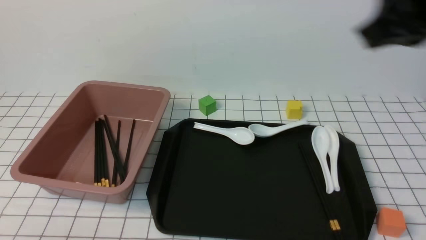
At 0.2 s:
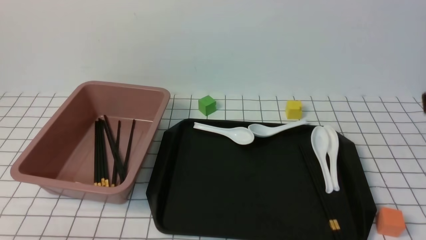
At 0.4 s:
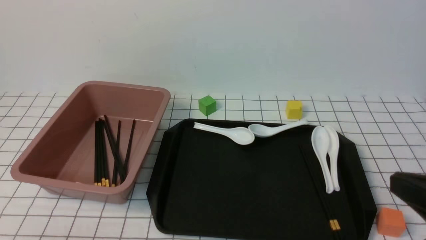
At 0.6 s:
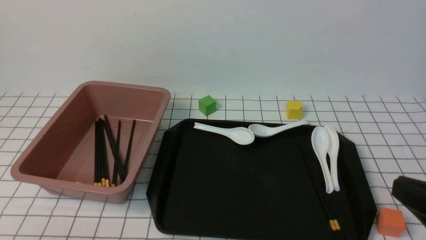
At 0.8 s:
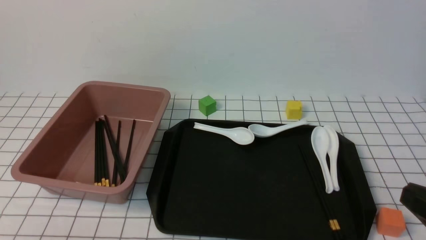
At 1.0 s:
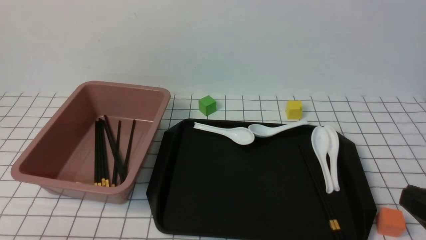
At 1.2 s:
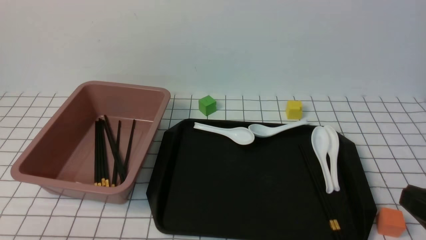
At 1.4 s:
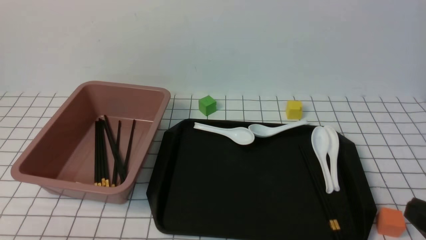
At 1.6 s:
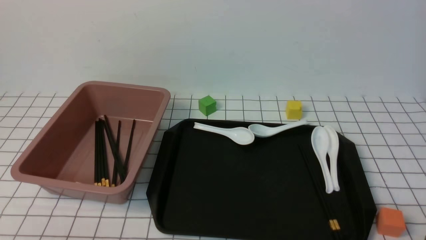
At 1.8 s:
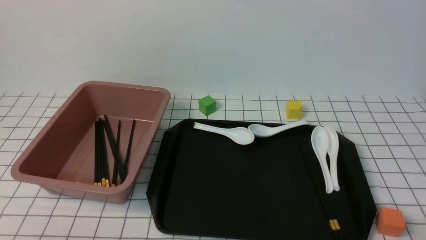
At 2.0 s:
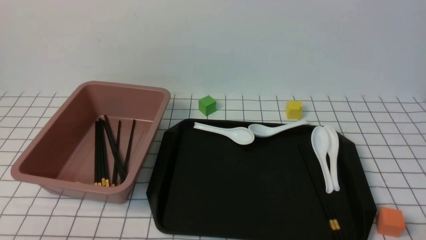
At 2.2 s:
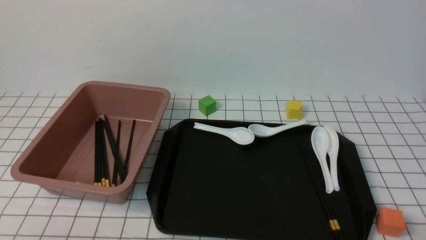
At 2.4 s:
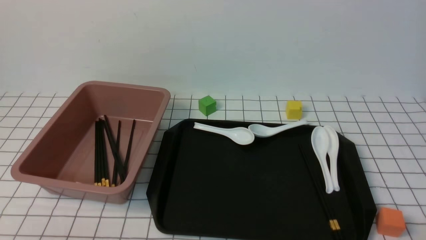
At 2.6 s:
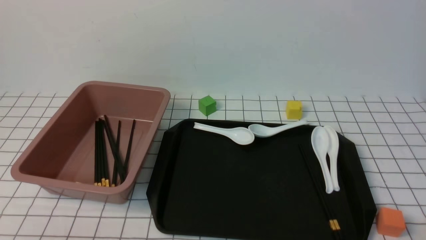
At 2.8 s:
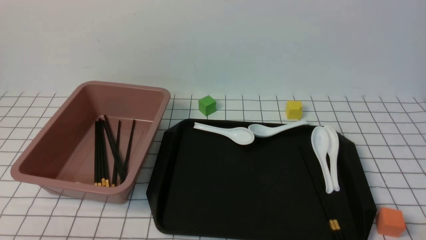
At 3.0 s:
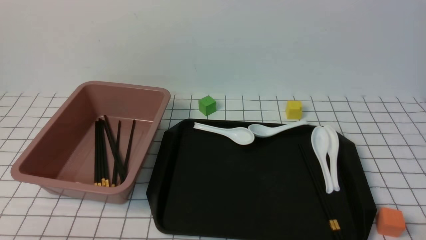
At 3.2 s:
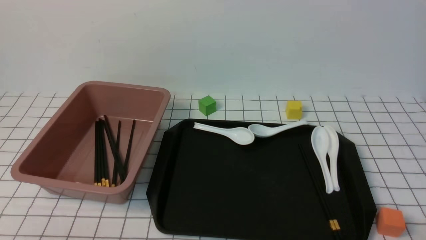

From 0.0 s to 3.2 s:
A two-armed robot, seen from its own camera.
From 0.0 s to 1.6 s: The right gripper travels downward, backward and to the right by roughly 30 cm.

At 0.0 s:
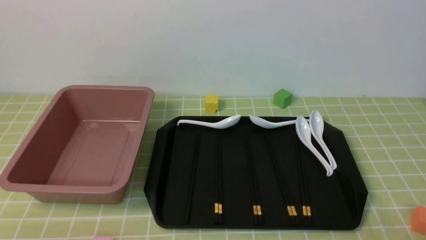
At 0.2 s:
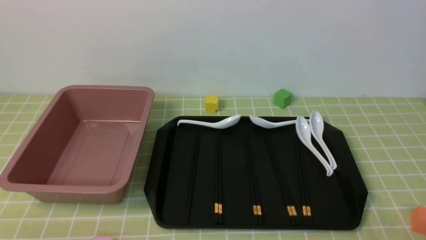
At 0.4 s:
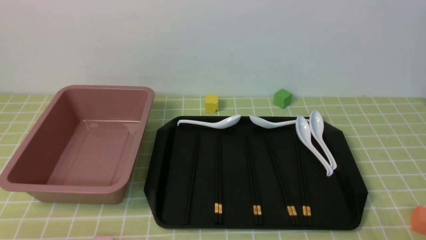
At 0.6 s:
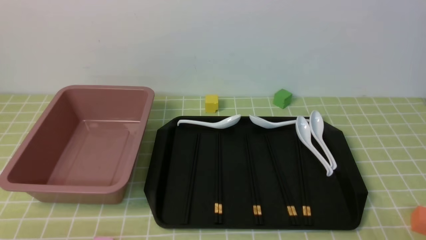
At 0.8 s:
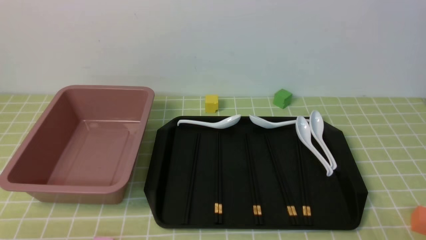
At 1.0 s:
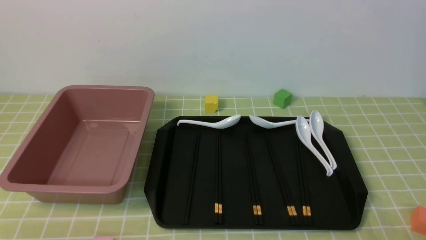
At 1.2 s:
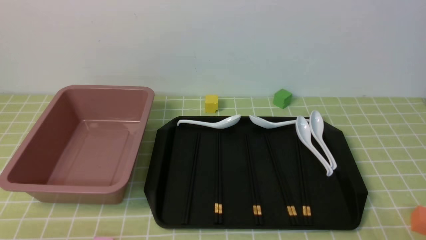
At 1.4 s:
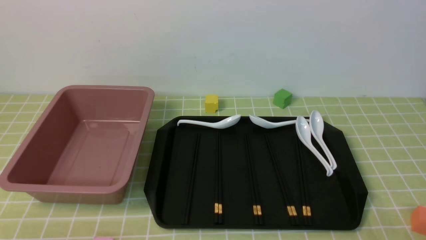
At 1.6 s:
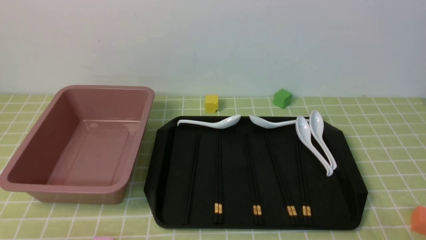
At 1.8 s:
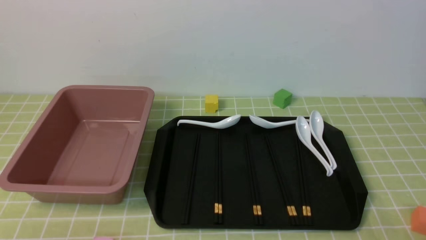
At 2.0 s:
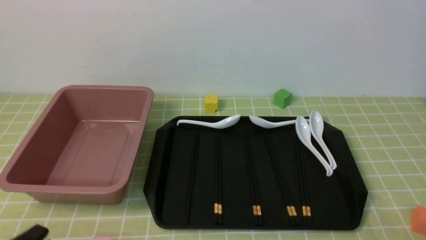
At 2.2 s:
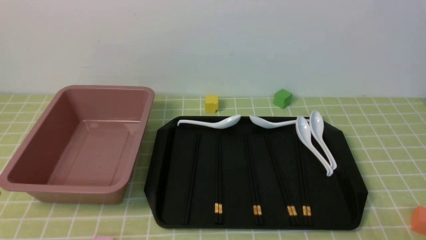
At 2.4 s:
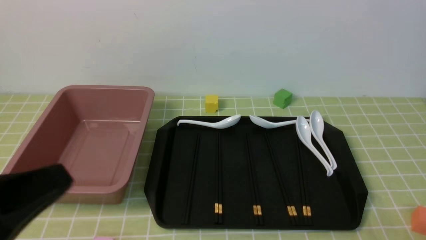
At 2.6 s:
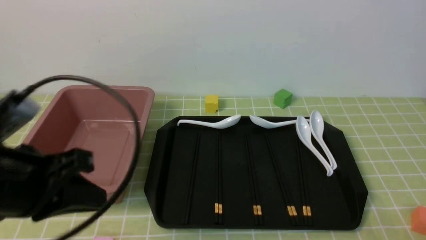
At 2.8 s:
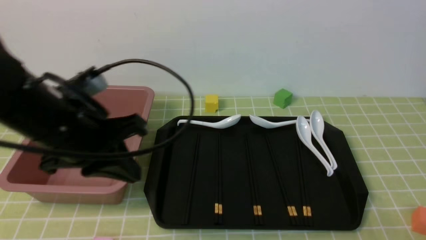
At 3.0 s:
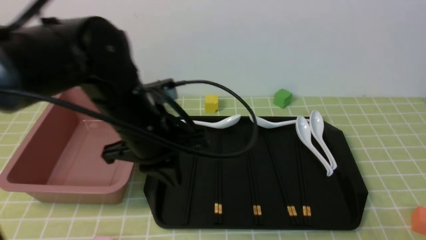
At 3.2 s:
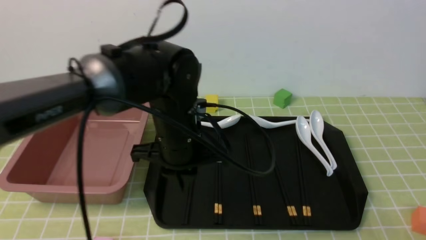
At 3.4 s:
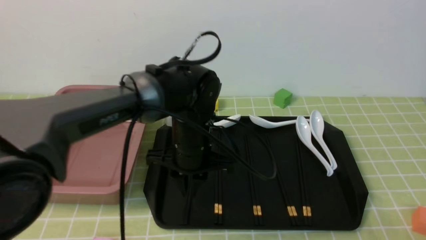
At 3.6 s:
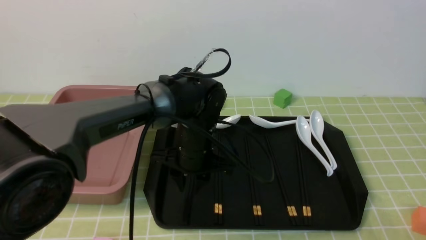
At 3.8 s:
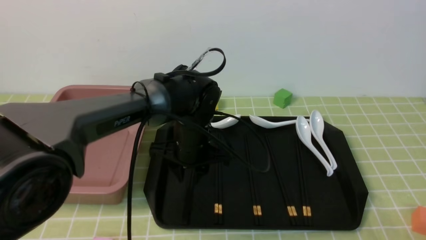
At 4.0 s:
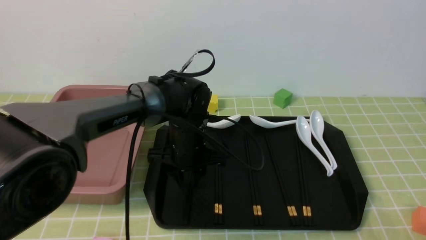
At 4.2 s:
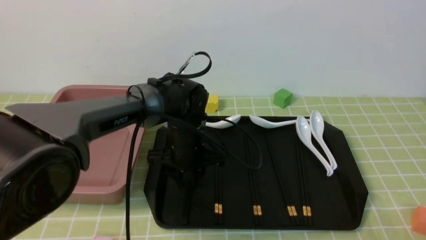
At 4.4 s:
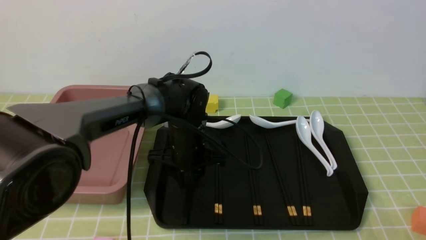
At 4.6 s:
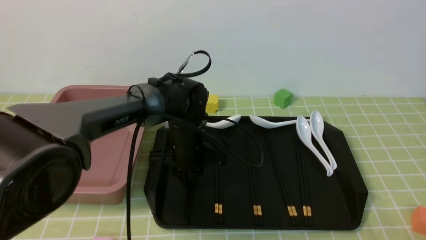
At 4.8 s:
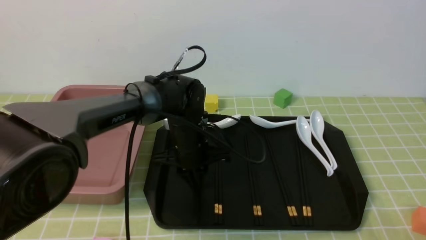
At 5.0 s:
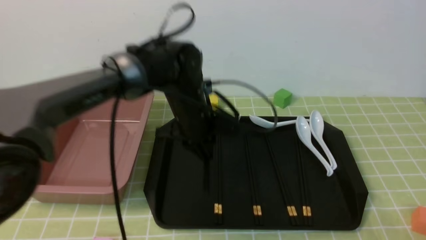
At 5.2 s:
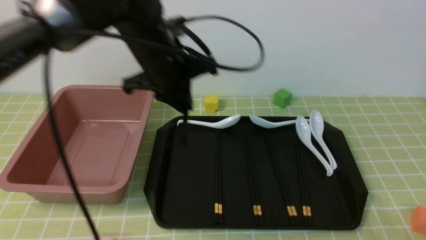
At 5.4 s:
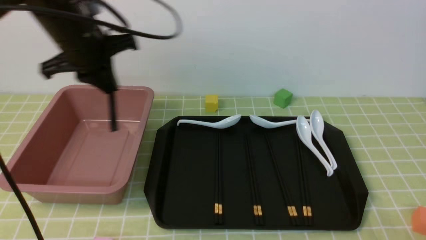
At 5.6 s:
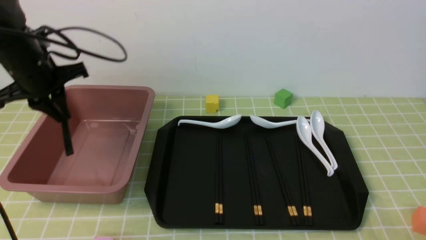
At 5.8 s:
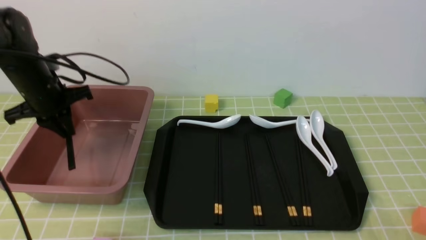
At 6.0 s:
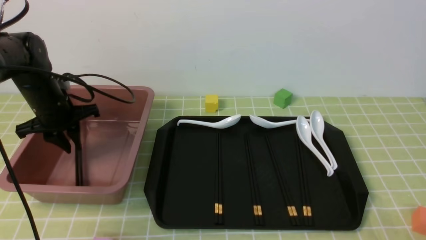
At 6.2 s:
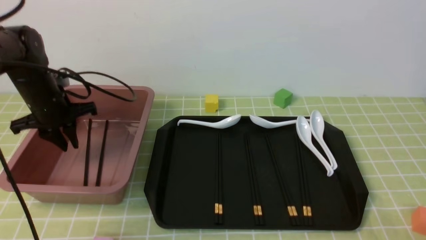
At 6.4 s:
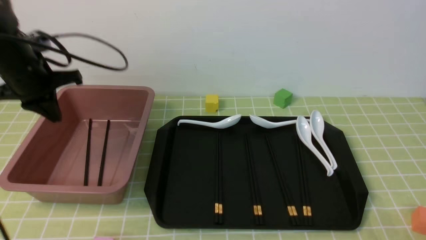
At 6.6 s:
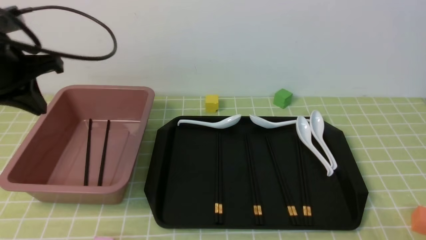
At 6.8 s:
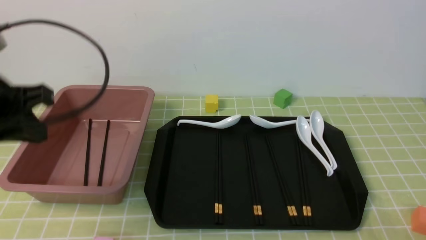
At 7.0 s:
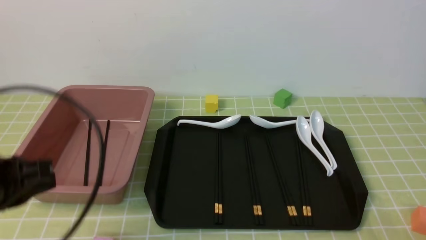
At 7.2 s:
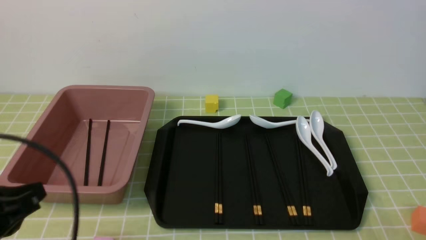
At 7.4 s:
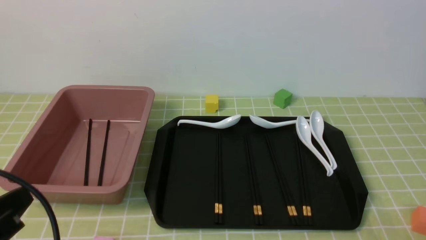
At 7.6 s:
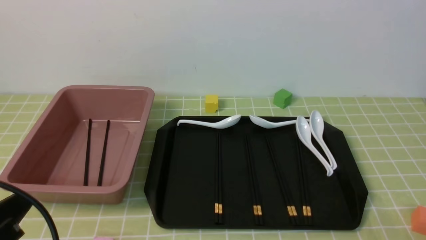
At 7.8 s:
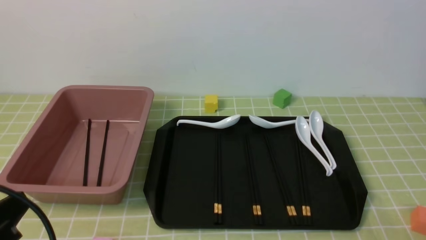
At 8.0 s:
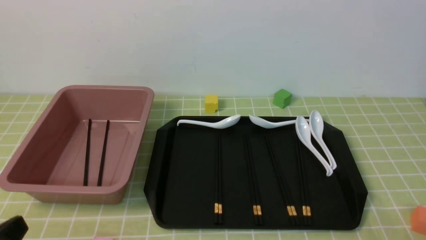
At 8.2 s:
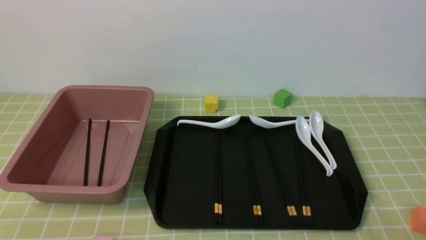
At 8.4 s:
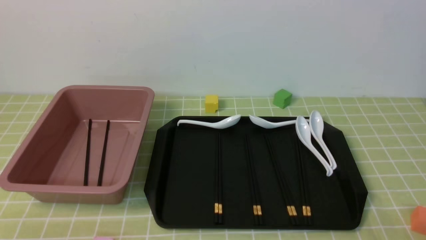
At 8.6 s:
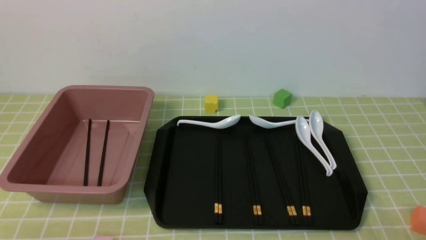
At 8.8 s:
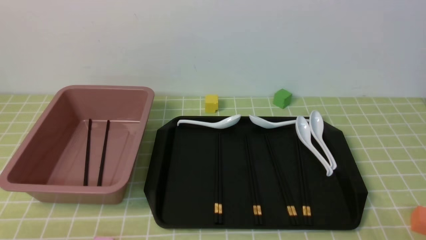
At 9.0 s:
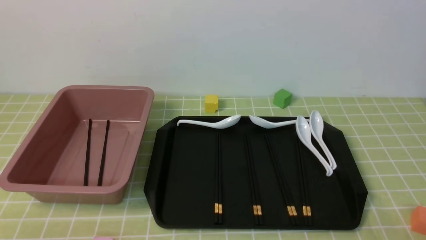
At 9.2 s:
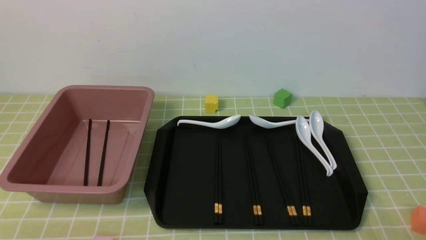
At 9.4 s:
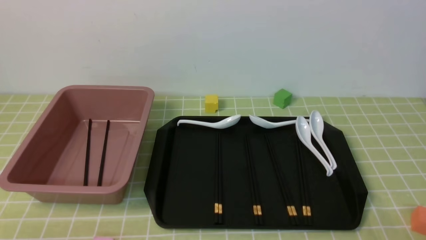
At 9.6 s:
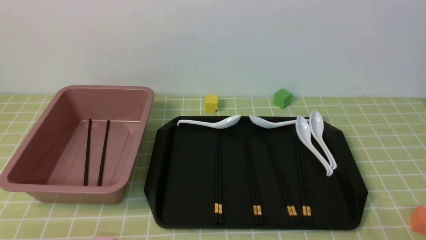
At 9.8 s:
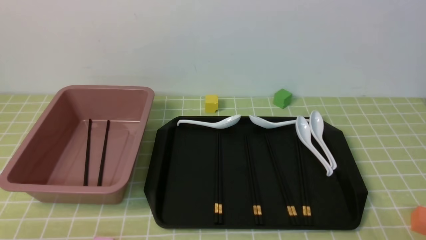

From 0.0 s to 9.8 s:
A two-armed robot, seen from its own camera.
Step, from 0.0 s to 5.0 s: use the left arm to grab a pair of chopsticks.
Step, from 5.4 s to 6.4 s: use the left arm to put the chopsticks into the lunch box.
From 1.4 s to 2.8 s: The left gripper is displaced upward, forward and to the right by roughly 25 cm, and closes its fingers.
From 2.8 s to 4.2 s: The left gripper moves forward, downward and to the right, about 30 cm, and opens.
From 4.2 s to 5.6 s: The left gripper travels to the left and upward by roughly 25 cm, and closes its fingers.
From 5.6 s to 7.0 s: The left gripper heads backward, covering about 20 cm, and closes its fingers.
From 7.0 s to 8.4 s: The left gripper is displaced backward and downward by approximately 20 cm.
